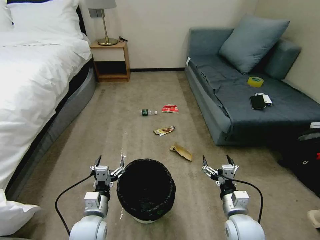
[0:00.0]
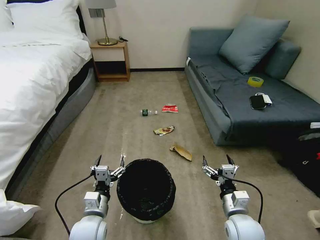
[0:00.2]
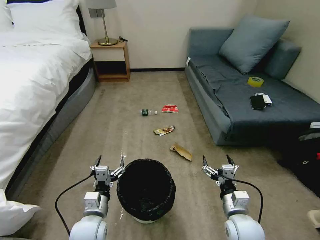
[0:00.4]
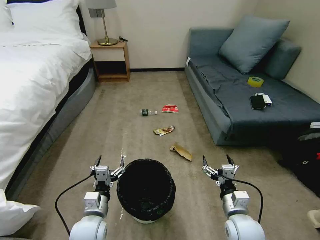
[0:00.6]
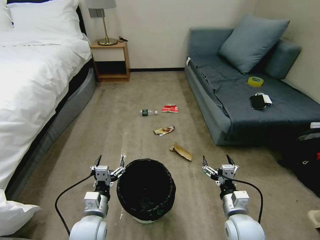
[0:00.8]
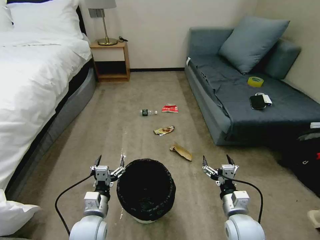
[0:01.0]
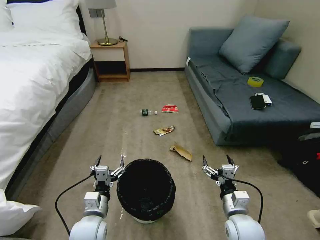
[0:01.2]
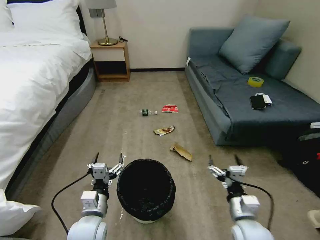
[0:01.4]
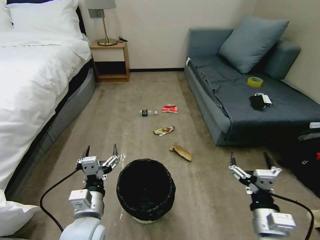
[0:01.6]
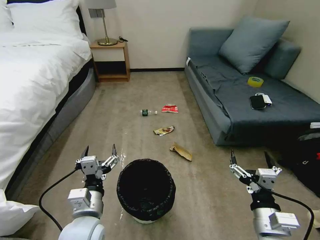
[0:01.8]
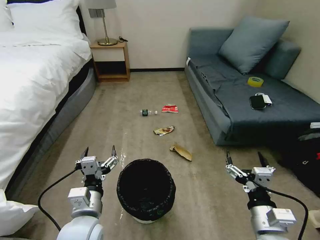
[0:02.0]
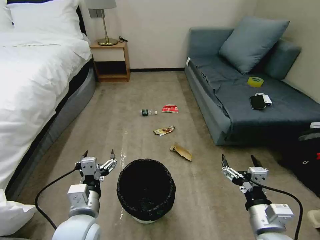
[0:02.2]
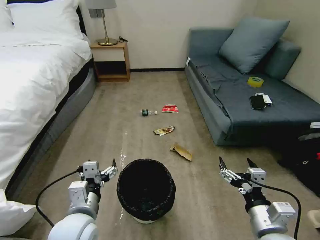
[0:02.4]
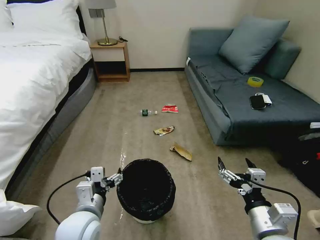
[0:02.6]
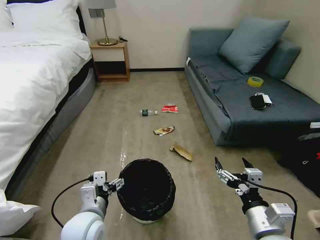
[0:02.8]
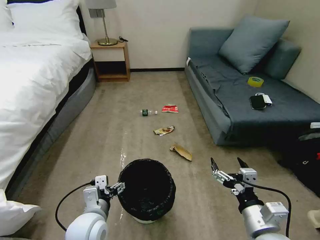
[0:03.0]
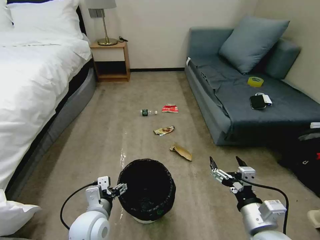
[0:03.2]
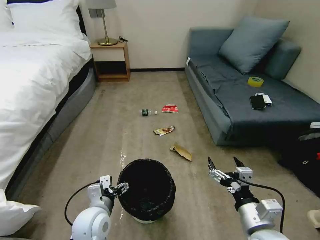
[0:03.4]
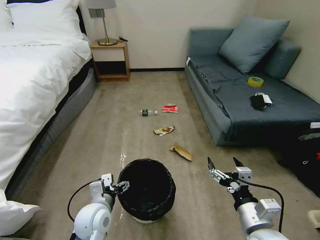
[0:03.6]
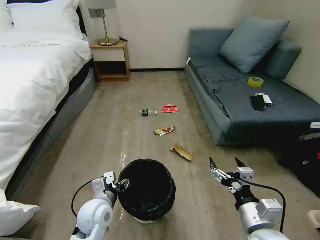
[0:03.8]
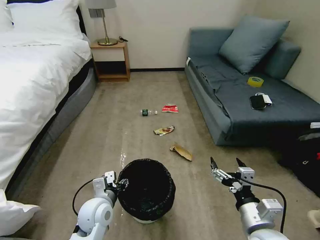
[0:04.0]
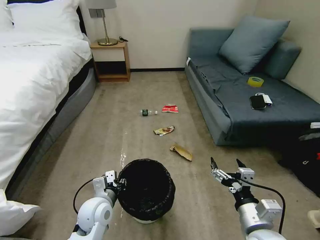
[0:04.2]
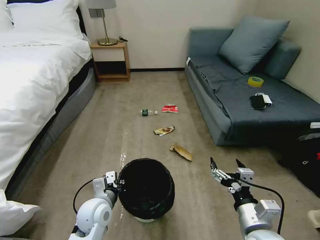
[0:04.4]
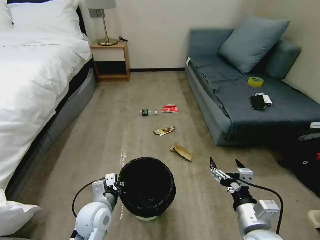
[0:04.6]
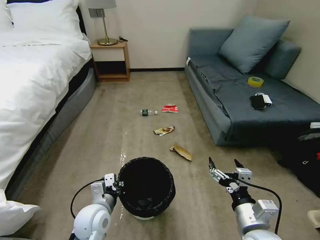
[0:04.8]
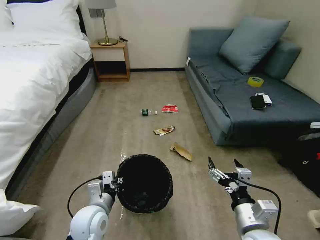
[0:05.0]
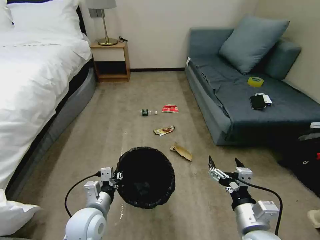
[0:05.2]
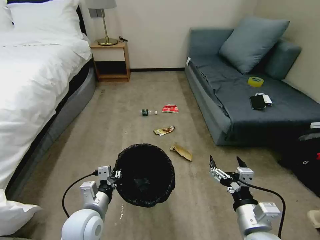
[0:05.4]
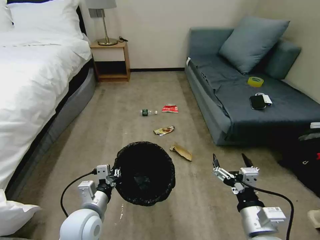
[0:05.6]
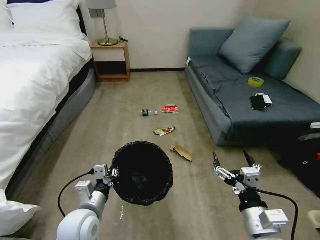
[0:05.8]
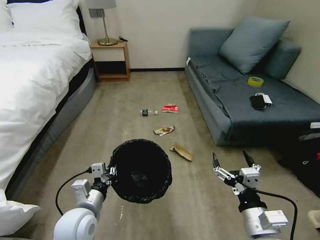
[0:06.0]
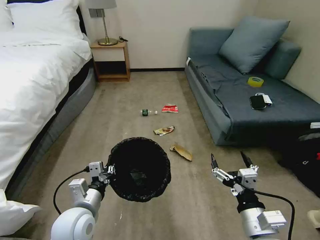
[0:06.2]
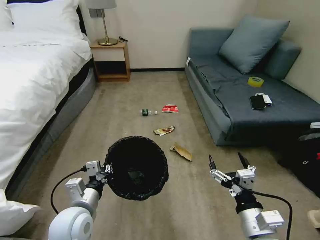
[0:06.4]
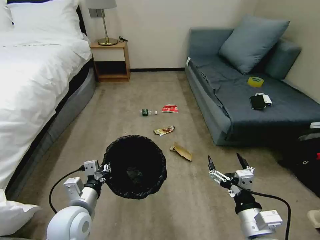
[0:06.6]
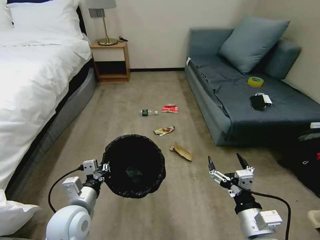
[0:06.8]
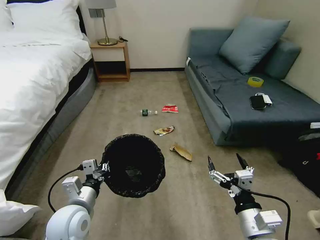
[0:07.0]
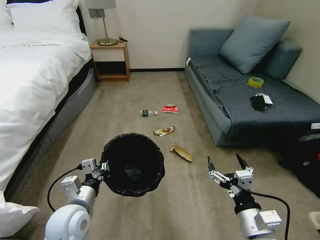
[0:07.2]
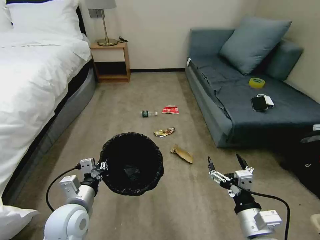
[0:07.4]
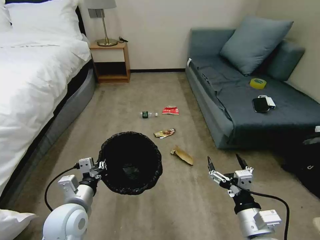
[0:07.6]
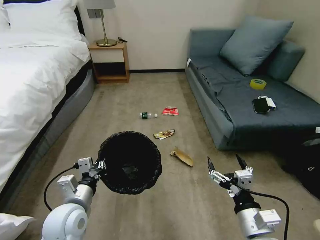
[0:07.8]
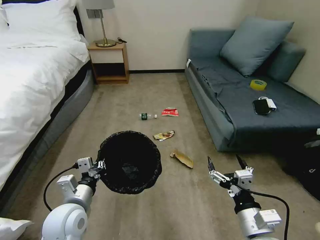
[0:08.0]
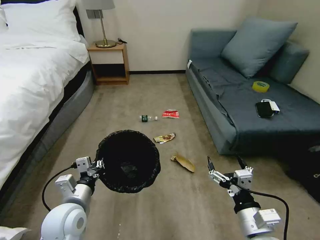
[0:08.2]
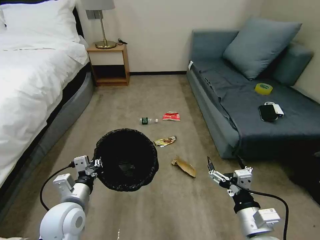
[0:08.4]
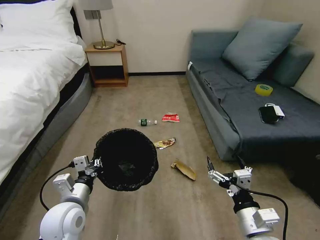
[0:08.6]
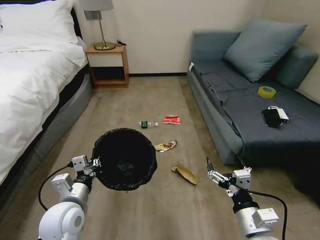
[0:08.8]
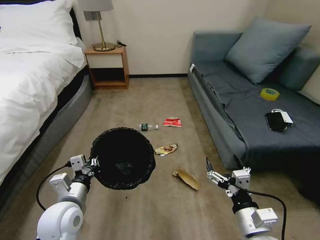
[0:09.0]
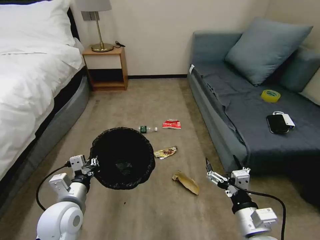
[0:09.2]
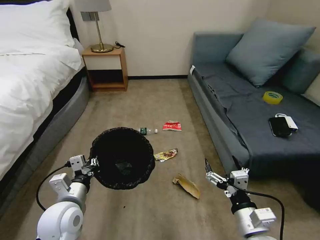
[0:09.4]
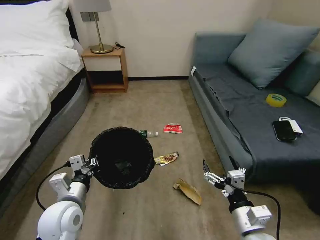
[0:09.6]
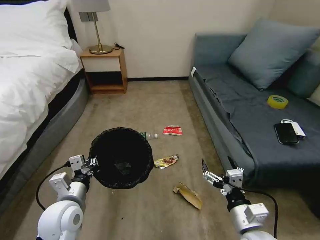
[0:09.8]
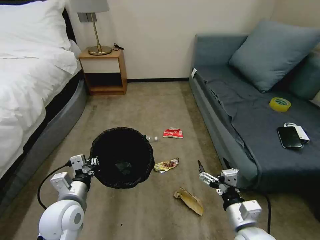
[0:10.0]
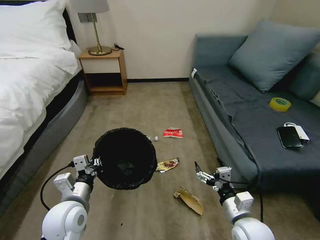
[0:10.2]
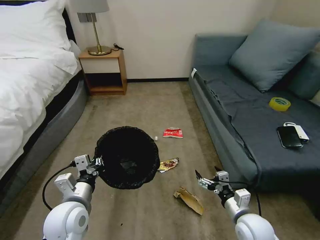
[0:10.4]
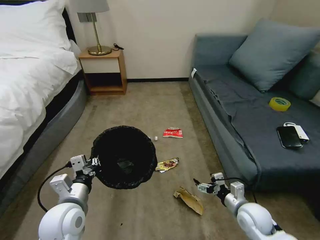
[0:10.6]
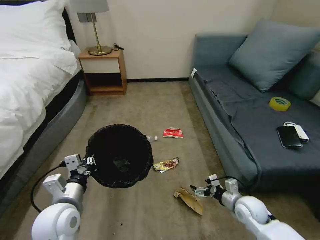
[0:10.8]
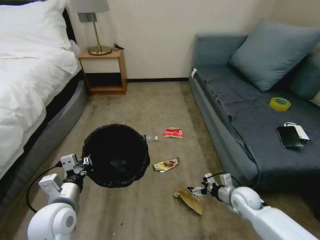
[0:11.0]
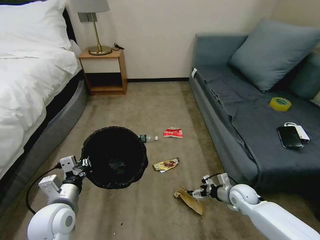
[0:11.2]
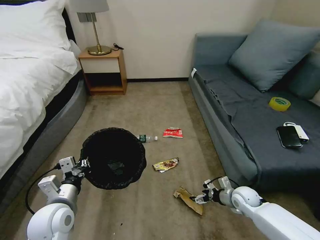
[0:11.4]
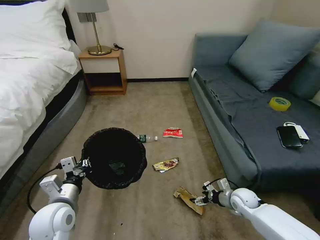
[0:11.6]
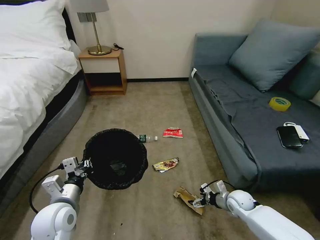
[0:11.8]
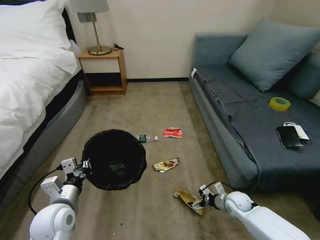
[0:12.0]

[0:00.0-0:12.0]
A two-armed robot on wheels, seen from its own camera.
Task of the whole recording: Pick up the trash bin, then pick up the garbage on the floor and place it into the trash bin.
0:03.0 to 0:04.4: The left gripper travels forward by roughly 5 cm, and closes its fingers.
0:04.4 to 0:06.0: The left gripper moves approximately 5 cm.
0:06.0 to 0:07.6: The grippers make only small movements.
0:09.0 to 0:10.4: The right gripper goes about 10 cm downward and forward.
0:10.4 to 0:12.0: The right gripper shifts roughly 20 cm downward, forward and to the right.

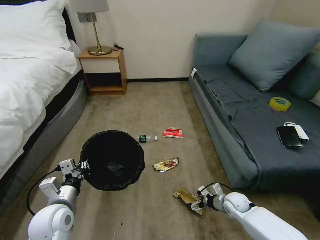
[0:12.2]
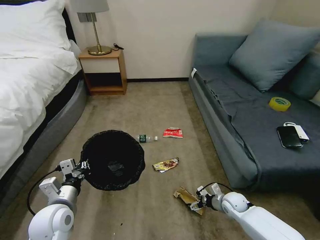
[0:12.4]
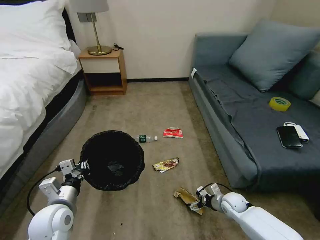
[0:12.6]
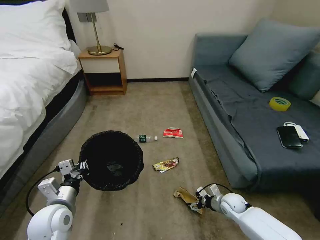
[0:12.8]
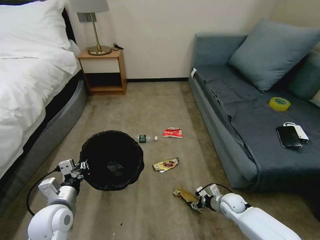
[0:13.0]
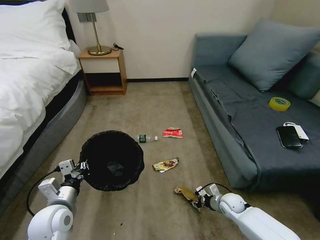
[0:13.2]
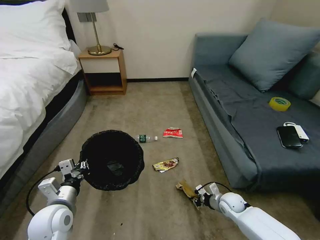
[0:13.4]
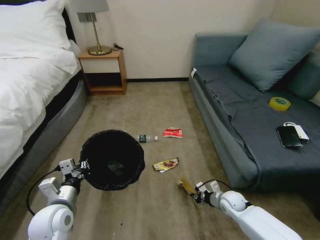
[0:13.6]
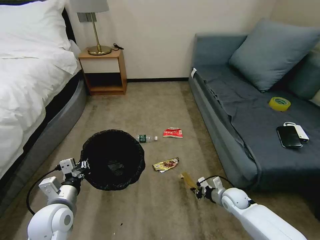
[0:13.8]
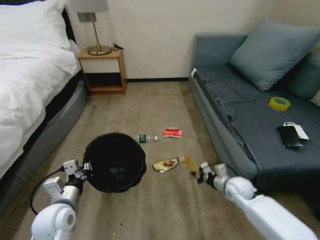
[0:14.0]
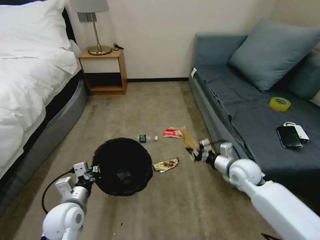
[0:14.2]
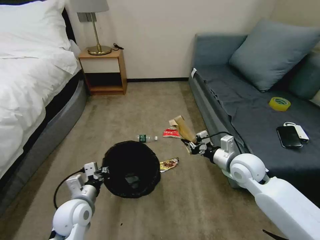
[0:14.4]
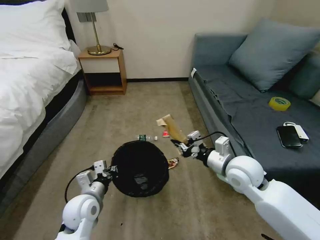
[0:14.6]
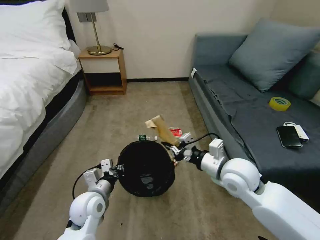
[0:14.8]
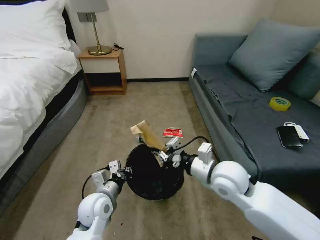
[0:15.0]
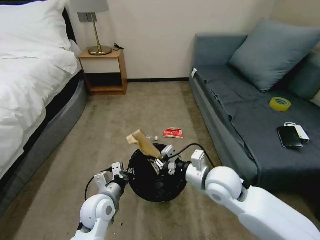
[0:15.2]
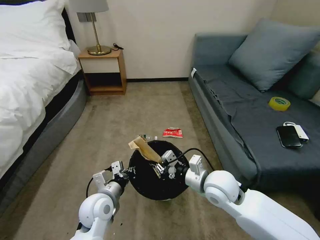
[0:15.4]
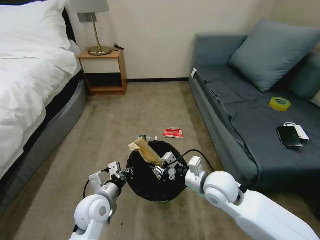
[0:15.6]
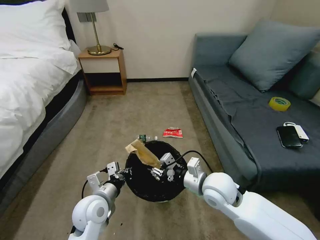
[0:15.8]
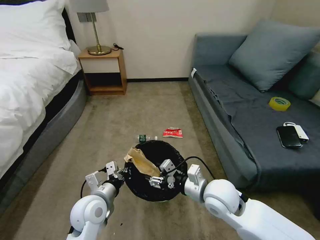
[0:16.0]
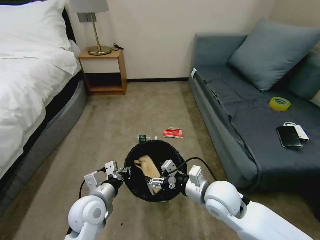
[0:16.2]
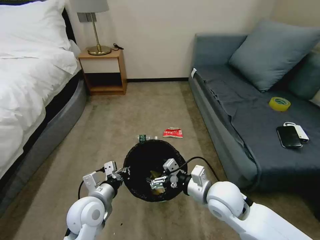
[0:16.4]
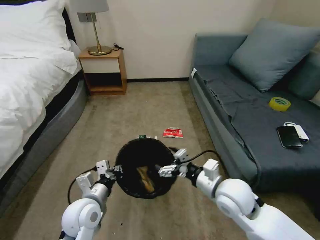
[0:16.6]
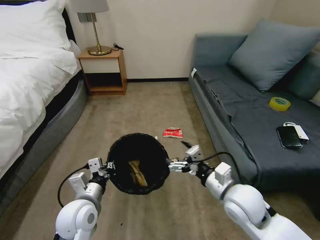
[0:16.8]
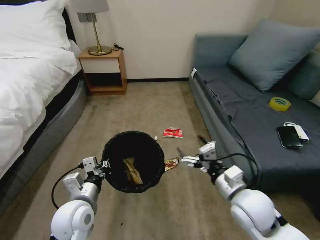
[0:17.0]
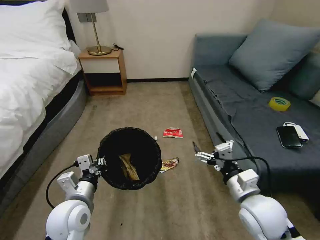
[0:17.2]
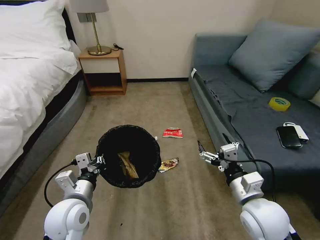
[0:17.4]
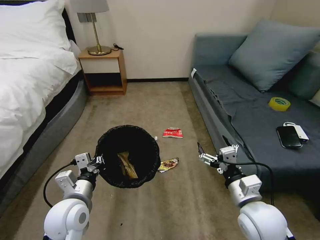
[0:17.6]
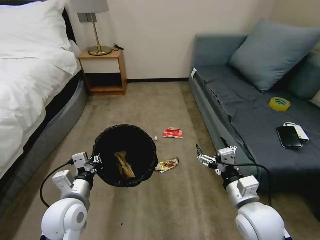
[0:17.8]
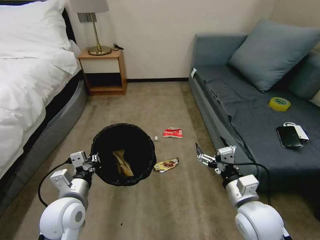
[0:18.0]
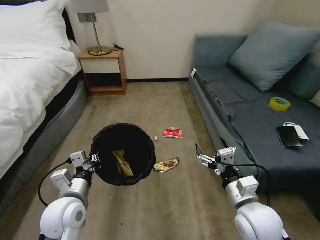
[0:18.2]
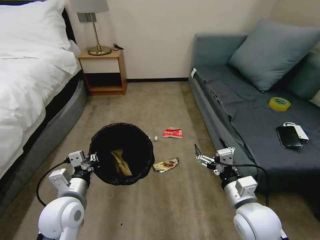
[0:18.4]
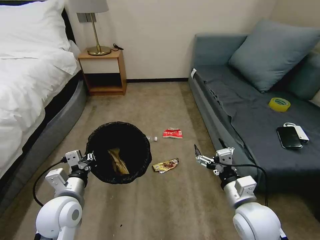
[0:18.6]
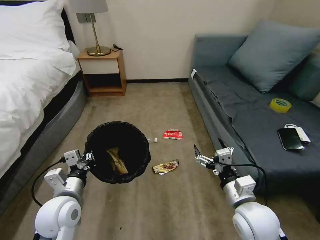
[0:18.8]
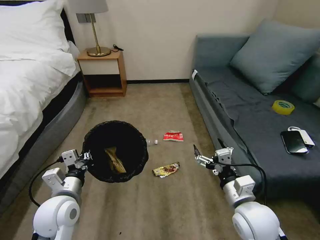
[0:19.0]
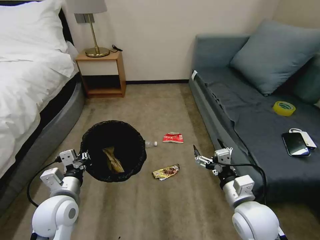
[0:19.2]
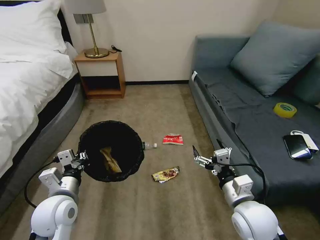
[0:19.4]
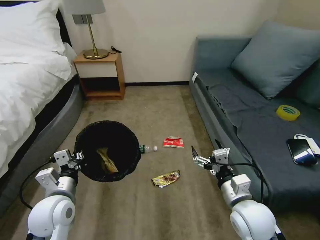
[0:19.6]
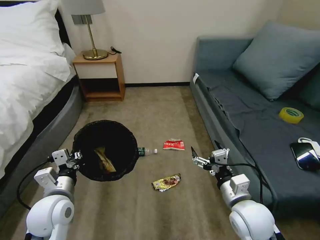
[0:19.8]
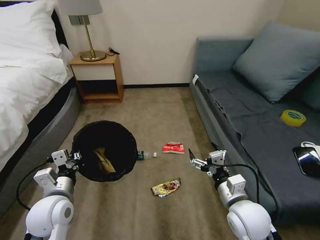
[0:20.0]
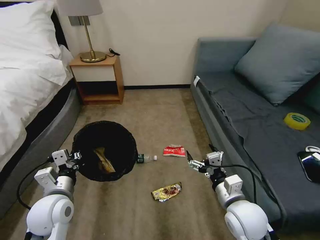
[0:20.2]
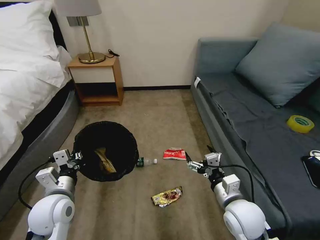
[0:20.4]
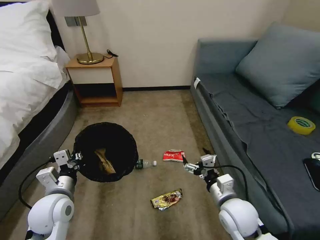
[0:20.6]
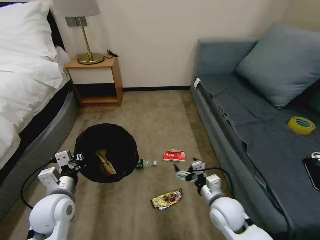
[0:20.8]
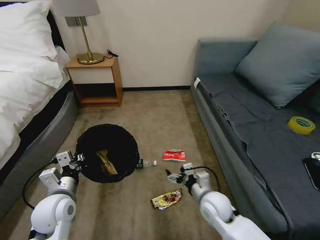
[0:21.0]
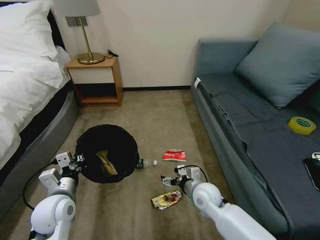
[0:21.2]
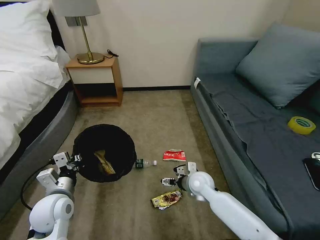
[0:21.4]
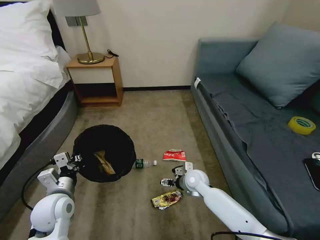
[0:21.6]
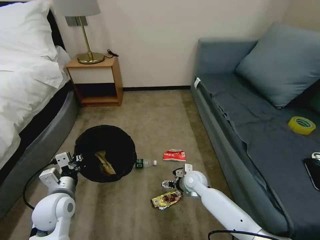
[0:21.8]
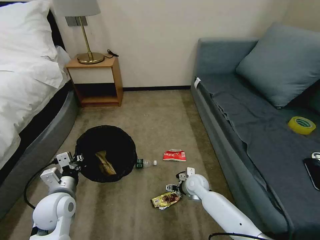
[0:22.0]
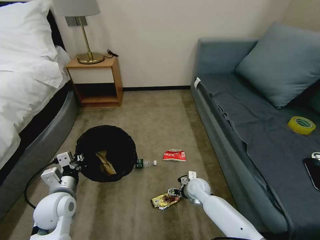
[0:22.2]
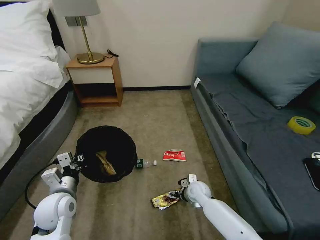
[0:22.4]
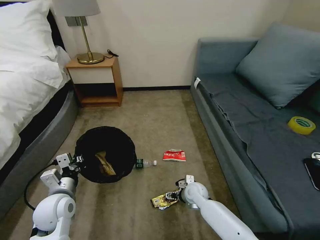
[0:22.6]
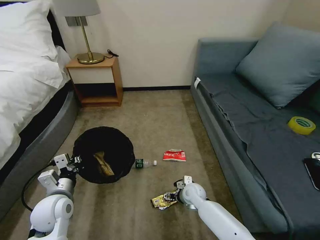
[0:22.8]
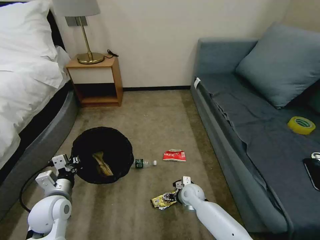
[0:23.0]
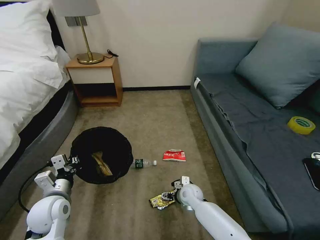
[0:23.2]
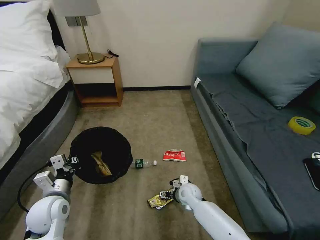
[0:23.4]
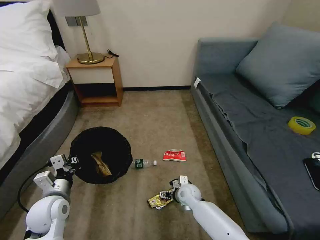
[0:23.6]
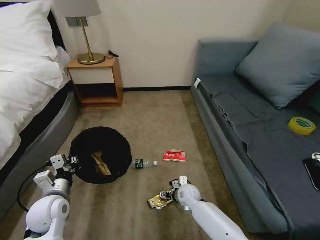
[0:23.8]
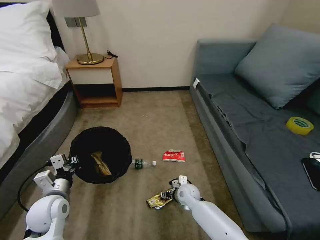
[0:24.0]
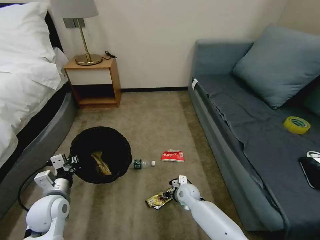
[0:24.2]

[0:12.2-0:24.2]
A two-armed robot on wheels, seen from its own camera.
Task of the whole recording: Pick up the trash bin, then pick up the garbage on the floor and place it into the trash bin.
0:12.2 to 0:13.8: The right gripper closes up.
0:13.8 to 0:15.2: The right gripper heads upward and to the left, covering roughly 25 cm. Meanwhile the left gripper shifts about 10 cm to the right.
0:15.2 to 0:16.6: The right gripper opens up.
0:16.6 to 0:18.2: The right gripper moves backward, roughly 5 cm.
0:19.8 to 0:21.2: The right gripper is displaced forward, downward and to the left by roughly 15 cm.
0:21.2 to 0:22.6: The right gripper shifts roughly 10 cm downward.
0:22.6 to 0:24.2: There are only small adjustments of the grippers.
